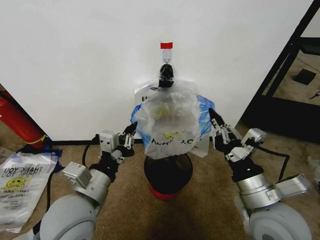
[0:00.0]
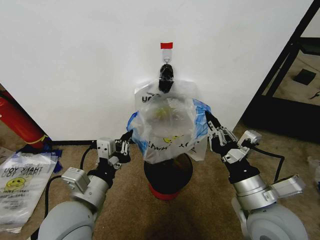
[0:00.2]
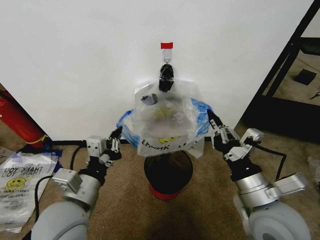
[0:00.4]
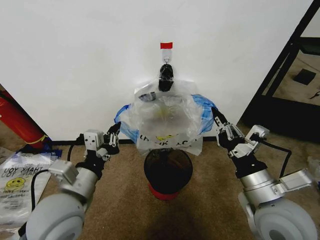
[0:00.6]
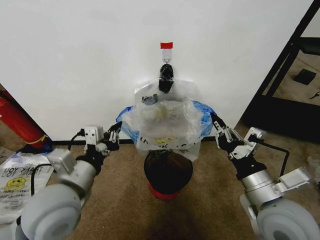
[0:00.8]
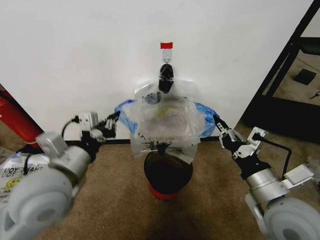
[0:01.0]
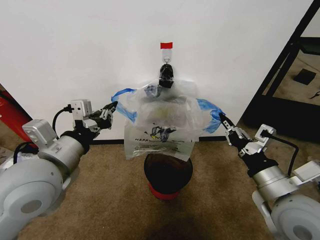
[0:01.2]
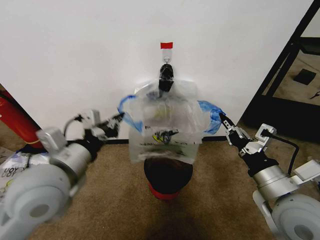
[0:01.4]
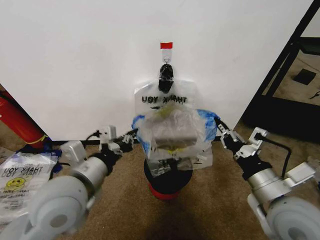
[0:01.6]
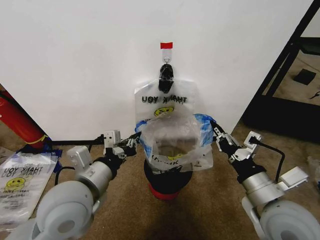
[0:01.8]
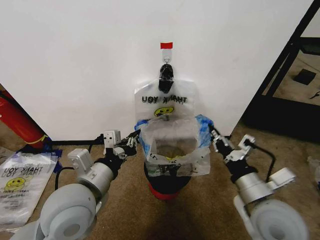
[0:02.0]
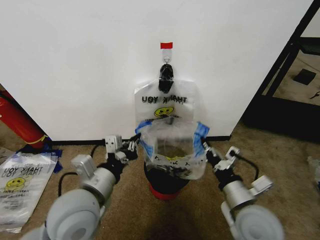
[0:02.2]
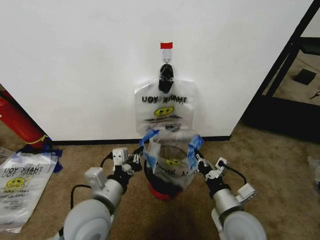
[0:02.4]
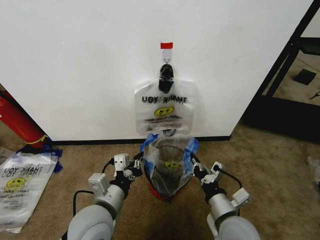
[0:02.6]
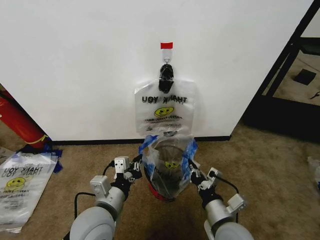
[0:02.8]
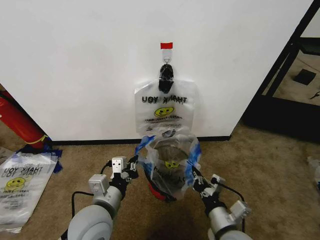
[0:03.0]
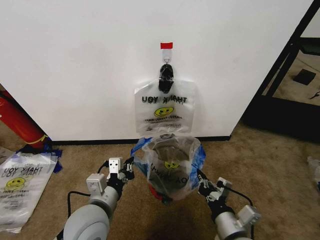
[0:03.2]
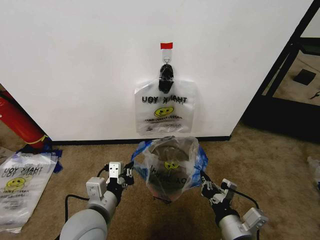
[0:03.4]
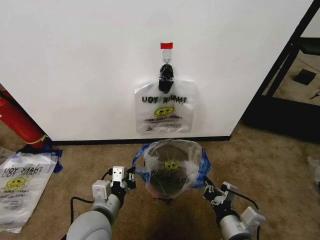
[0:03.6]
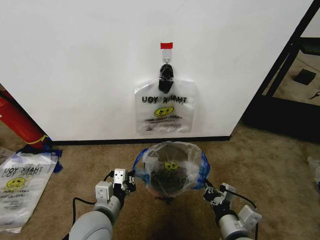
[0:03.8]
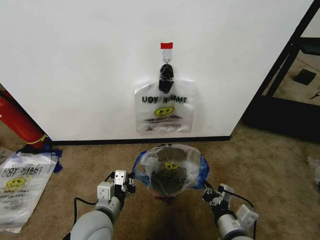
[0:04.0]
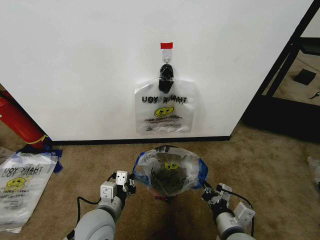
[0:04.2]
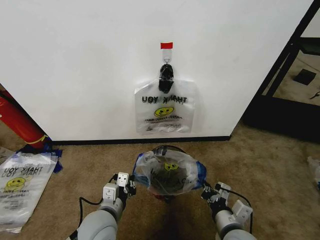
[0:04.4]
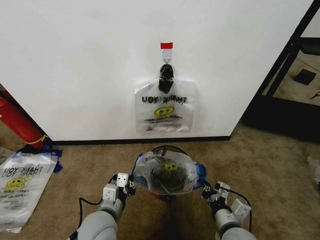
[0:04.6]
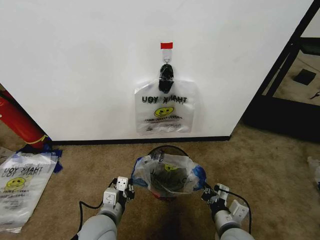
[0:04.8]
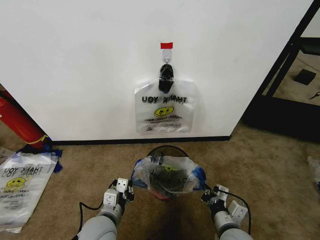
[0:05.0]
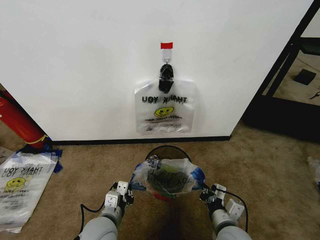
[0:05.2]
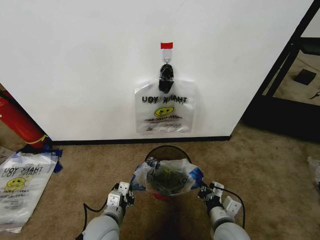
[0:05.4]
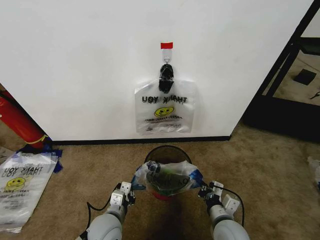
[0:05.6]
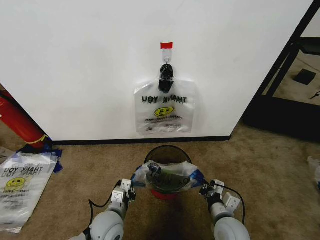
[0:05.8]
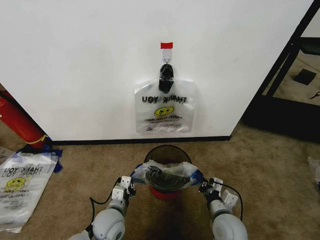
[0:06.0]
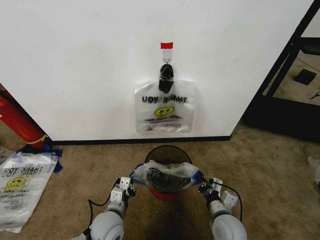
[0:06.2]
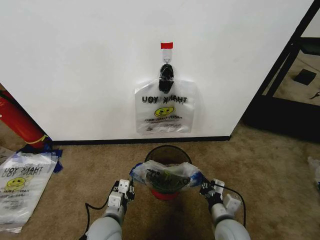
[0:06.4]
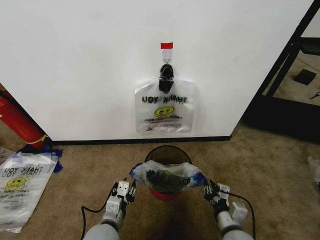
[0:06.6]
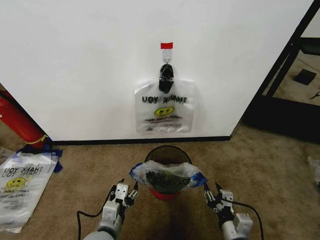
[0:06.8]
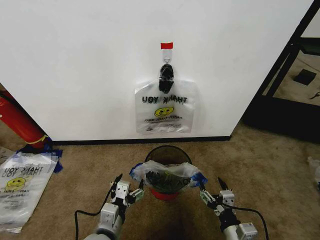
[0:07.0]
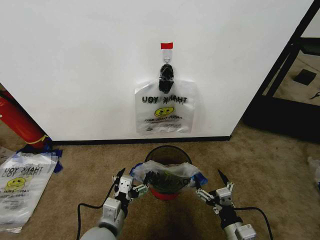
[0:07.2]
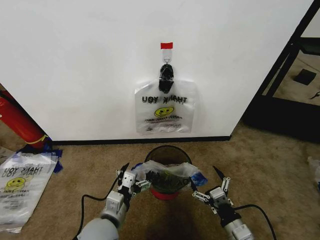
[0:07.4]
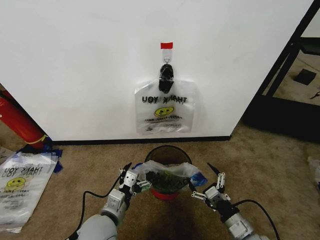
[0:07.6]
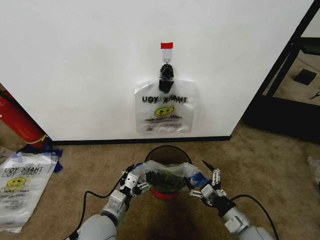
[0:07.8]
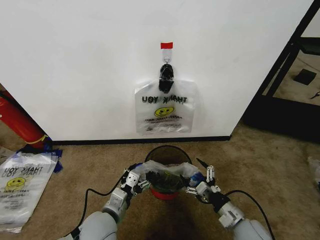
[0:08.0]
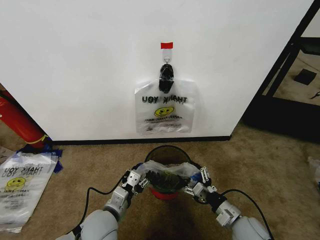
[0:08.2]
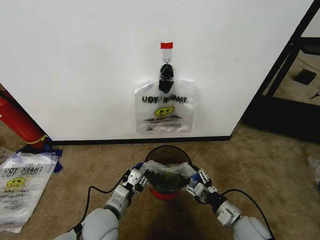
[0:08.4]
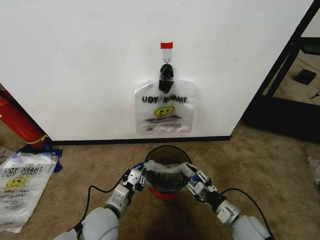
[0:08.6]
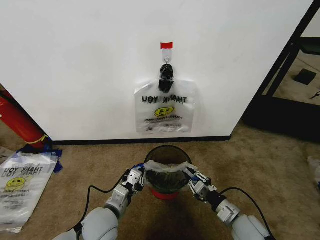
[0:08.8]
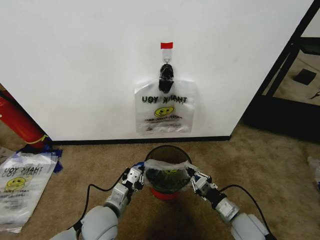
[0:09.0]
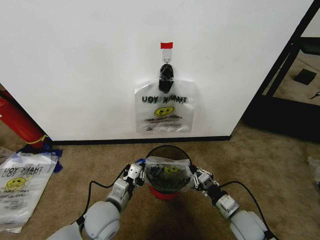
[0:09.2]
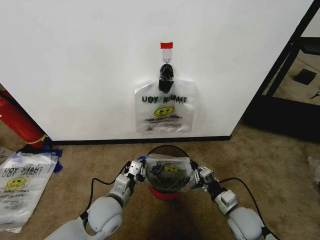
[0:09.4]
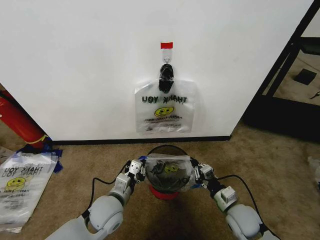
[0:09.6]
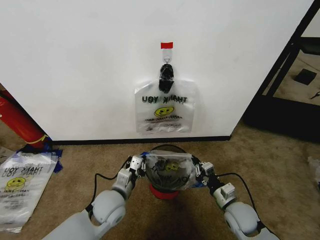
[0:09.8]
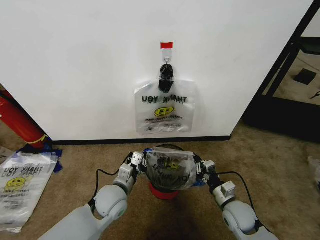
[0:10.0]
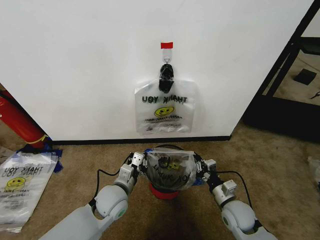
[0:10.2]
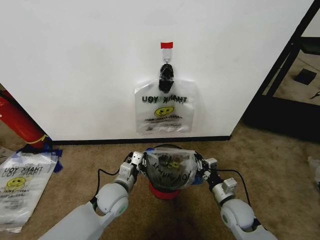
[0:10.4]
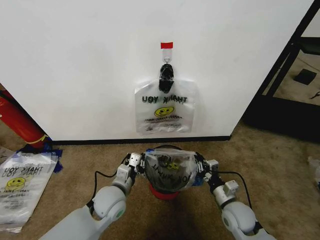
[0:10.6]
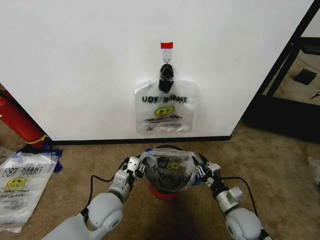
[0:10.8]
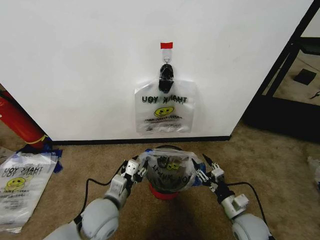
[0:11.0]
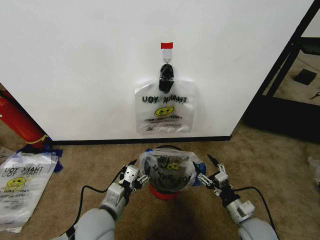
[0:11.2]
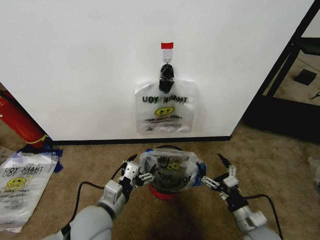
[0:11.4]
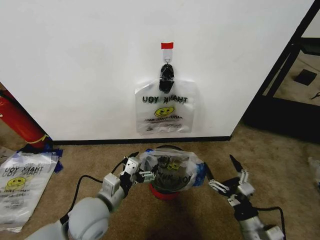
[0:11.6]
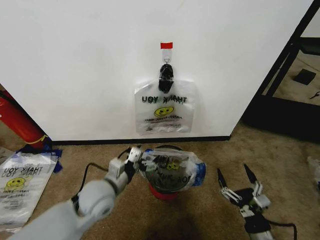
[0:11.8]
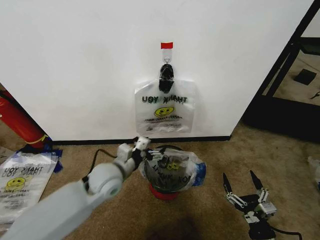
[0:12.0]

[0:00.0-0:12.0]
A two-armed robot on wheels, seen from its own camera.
Task of the whole recording: Pick up the garbage bag from the wall and place it over the trash bin.
0:01.6 to 0:03.0: The right gripper is displaced downward and to the left by some 15 cm; the left gripper is displaced downward by about 10 cm.
0:03.0 to 0:04.4: The left gripper heads downward, covering about 5 cm.
0:04.4 to 0:06.0: The right gripper is displaced downward and forward by roughly 10 cm; the left gripper heads downward, covering roughly 10 cm.
0:06.0 to 0:07.6: The left gripper shifts some 10 cm upward, and opens its fingers; the right gripper shifts roughly 10 cm backward and to the right, and opens up.
0:07.6 to 0:09.0: The left gripper closes its fingers, while the right gripper heads forward, covering some 5 cm, and closes its fingers.
0:09.0 to 0:10.4: The left gripper shifts roughly 10 cm forward, while the right gripper ends up roughly 5 cm from where it was.
0:10.4 to 0:12.0: The right gripper shifts about 15 cm backward, and opens up; the left gripper goes about 10 cm upward, moves roughly 10 cm backward and comes back, and opens its fingers.

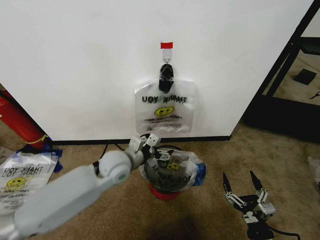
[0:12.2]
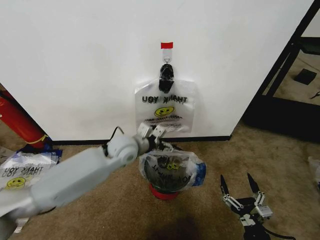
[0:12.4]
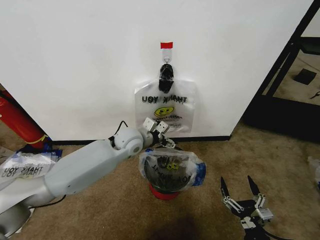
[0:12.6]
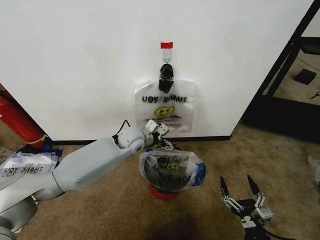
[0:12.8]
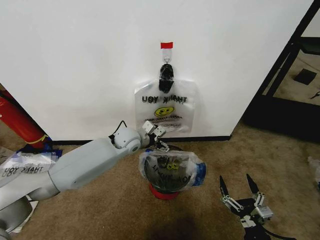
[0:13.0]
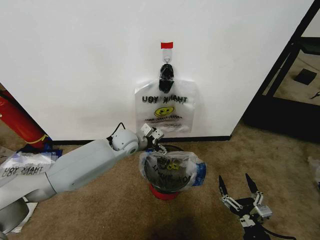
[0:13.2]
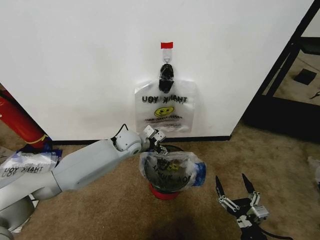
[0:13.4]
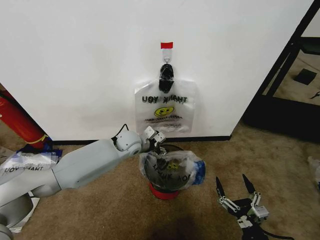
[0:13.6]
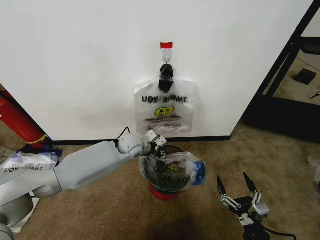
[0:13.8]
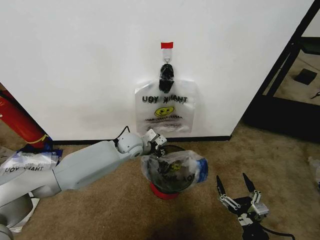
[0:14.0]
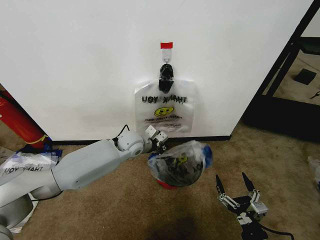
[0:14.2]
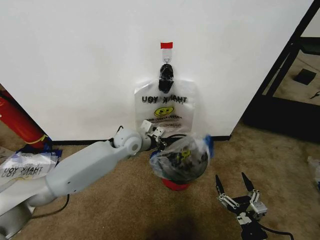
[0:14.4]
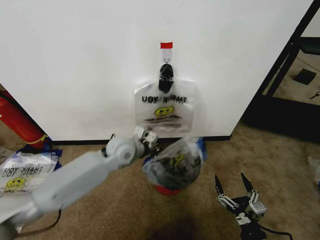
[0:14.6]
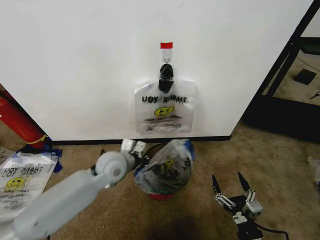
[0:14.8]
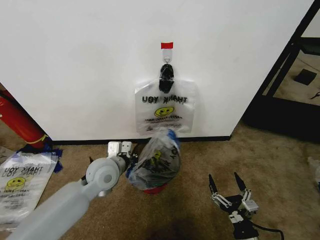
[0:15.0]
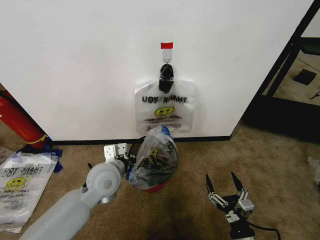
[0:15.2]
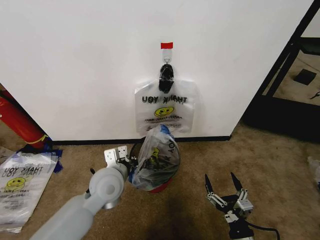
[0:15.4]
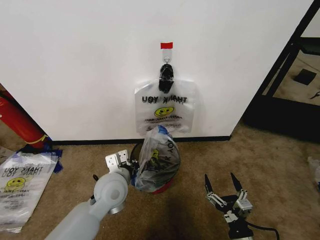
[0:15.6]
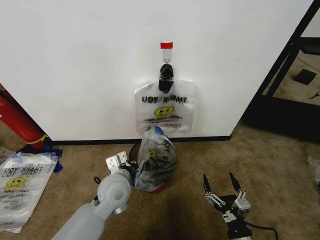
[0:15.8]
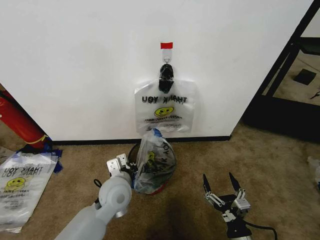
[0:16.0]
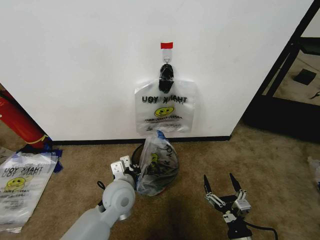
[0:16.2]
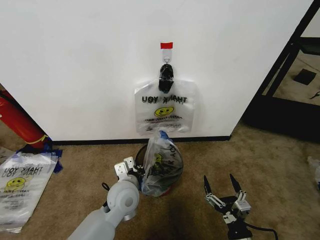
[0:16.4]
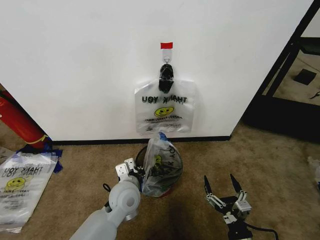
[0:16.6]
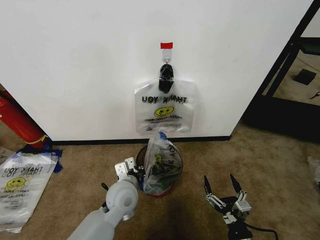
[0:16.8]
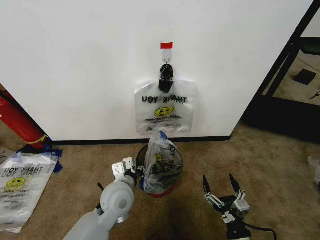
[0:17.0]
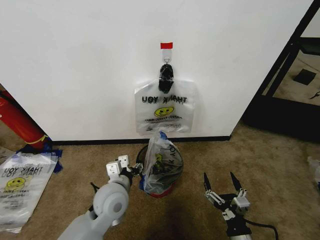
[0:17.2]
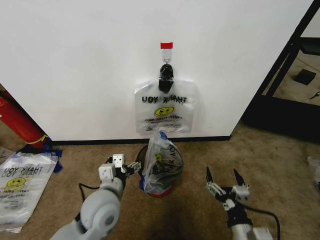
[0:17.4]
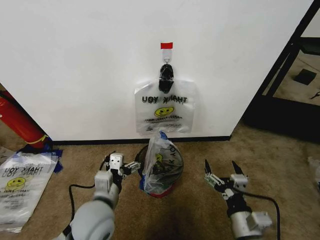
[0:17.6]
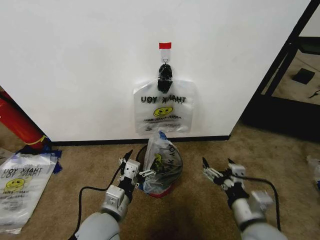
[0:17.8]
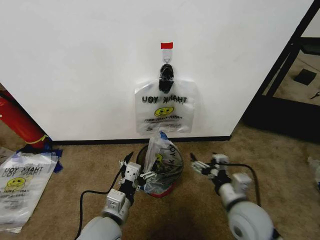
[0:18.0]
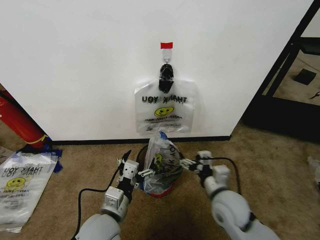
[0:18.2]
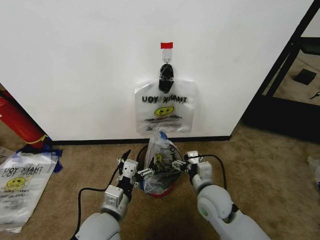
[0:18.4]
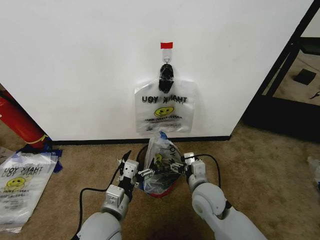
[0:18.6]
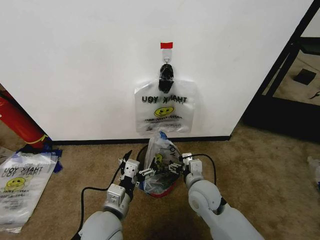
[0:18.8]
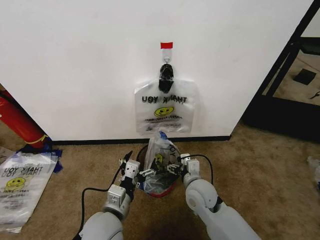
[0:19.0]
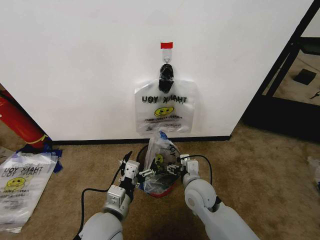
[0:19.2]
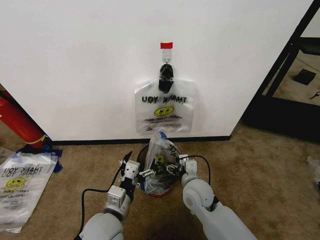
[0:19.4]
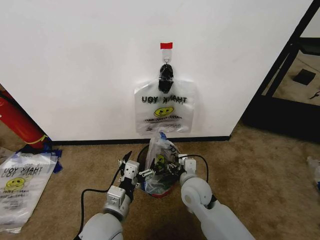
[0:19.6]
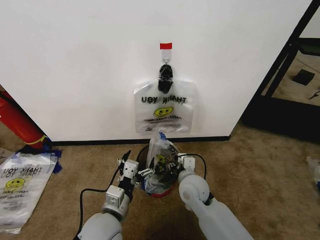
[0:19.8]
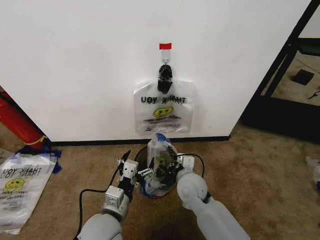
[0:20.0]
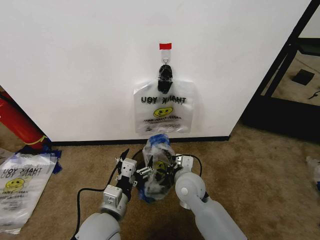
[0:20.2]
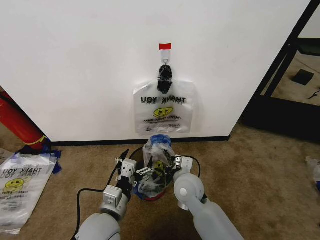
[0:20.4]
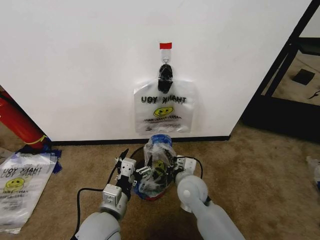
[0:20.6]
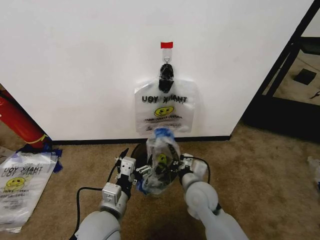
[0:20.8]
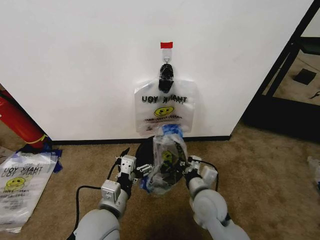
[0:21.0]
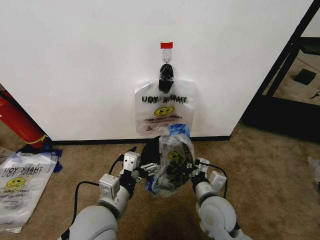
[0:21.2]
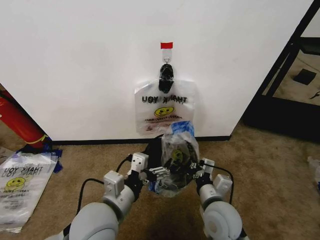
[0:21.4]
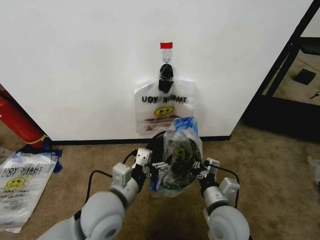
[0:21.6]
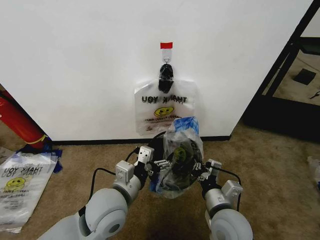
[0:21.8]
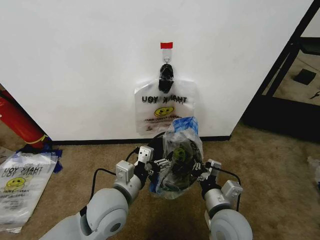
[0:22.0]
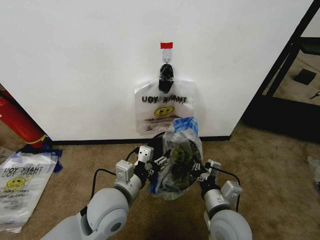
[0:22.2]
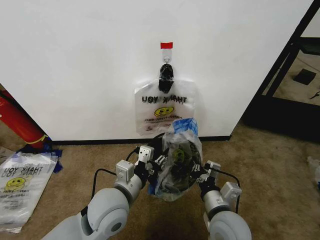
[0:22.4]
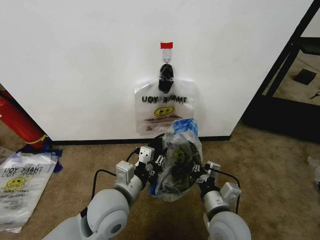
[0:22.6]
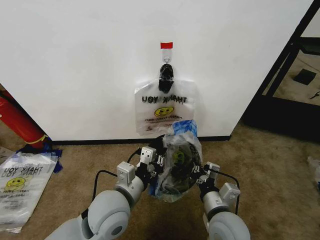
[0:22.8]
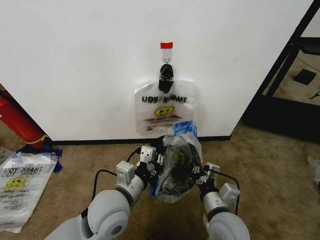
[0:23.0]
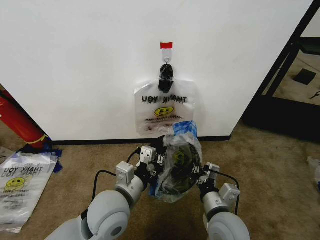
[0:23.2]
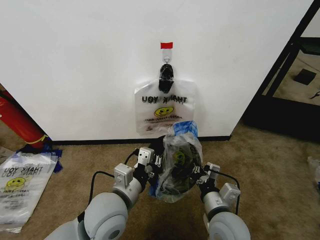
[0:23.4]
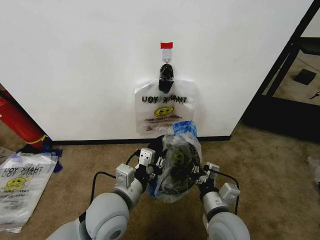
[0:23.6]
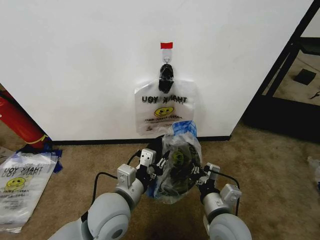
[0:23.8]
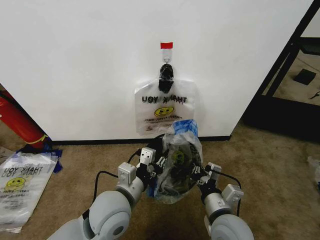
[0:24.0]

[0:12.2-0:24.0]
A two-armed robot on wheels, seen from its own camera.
Task of the whole recording: Pick up the garbage bag from the wall and place it over the trash bin.
0:12.2 to 0:13.6: The left gripper shifts roughly 10 cm forward, and closes.
0:13.6 to 0:15.2: The left gripper shifts about 15 cm backward, and closes its fingers.
0:15.2 to 0:16.6: The left gripper travels downward and to the right by approximately 10 cm.
0:16.6 to 0:18.2: The left gripper heads backward, covering about 10 cm, and opens its fingers; the right gripper heads forward and upward, covering approximately 20 cm.
0:18.2 to 0:19.6: The right gripper goes roughly 10 cm to the left and forward.
0:19.6 to 0:21.0: The right gripper ends up some 5 cm from where it was, and closes its fingers.
0:21.0 to 0:22.6: The right gripper moves backward, some 5 cm, while the left gripper ends up some 5 cm from where it was, and closes up.
0:22.6 to 0:24.0: The two grippers keep their place.
